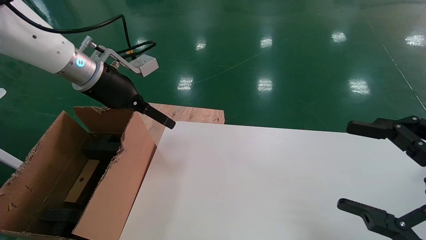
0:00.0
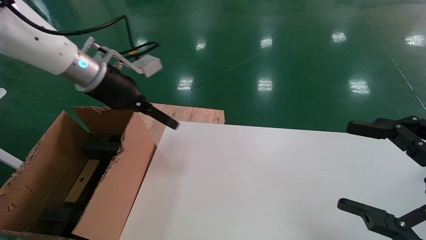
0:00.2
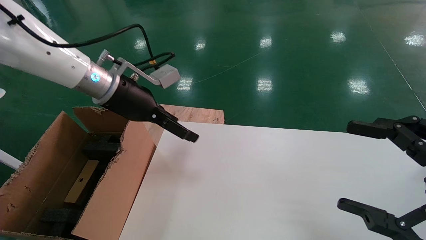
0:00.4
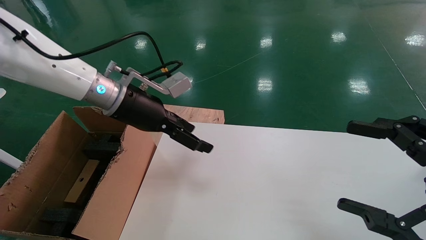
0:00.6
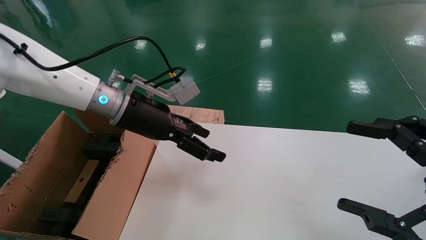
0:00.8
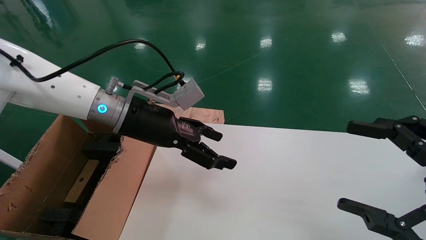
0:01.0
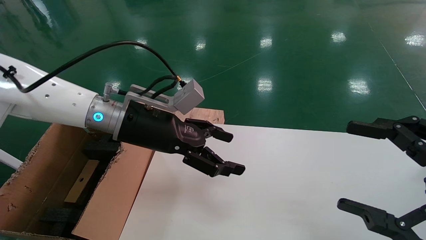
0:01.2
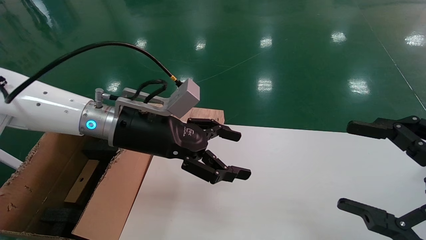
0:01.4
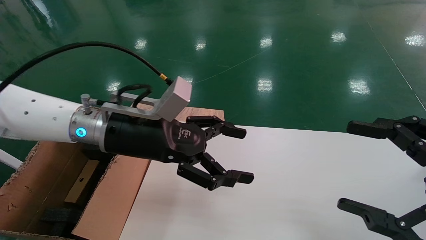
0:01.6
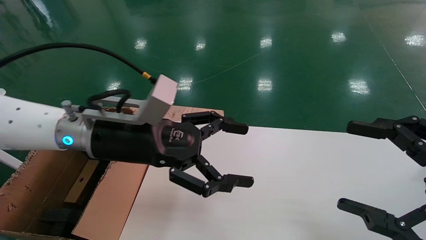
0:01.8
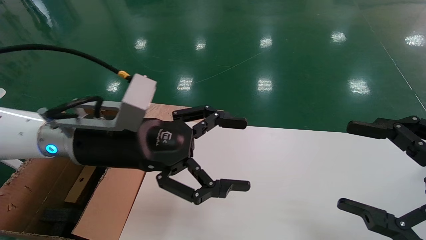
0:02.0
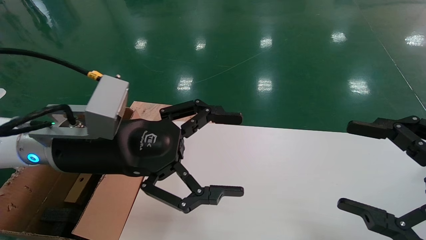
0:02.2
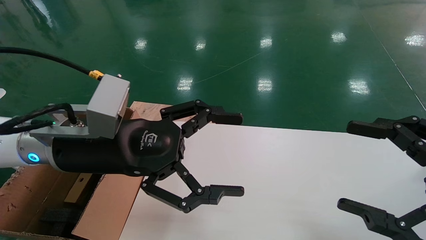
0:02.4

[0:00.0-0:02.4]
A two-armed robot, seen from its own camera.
Task of the whole recording: place the small box on the table into the large box on the left.
0:00.0 to 0:01.2: The left gripper shifts roughly 10 cm to the right and downward.
0:01.2 to 0:02.4: The left gripper goes some 10 cm backward.
